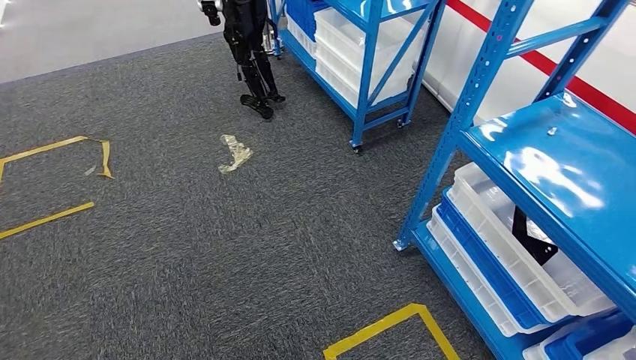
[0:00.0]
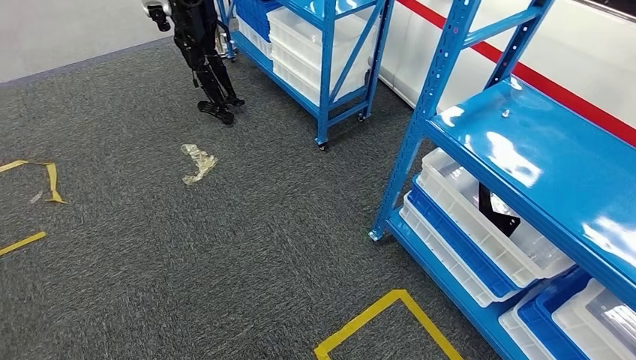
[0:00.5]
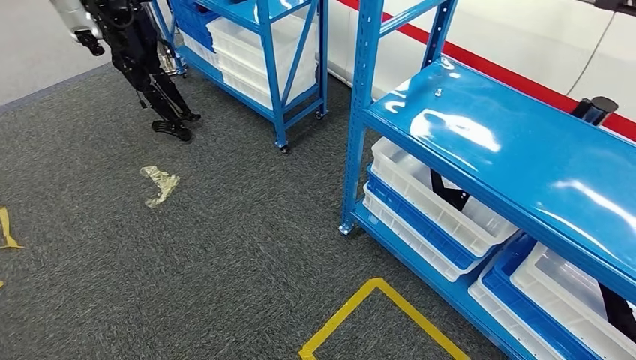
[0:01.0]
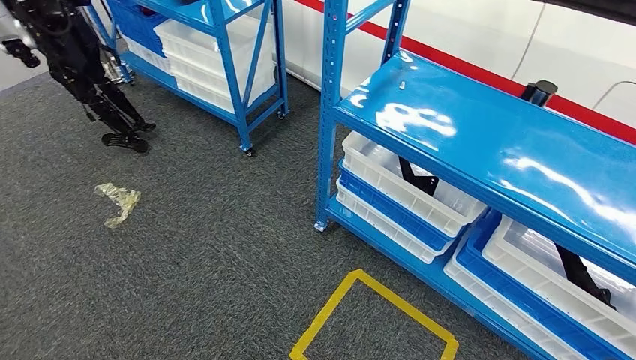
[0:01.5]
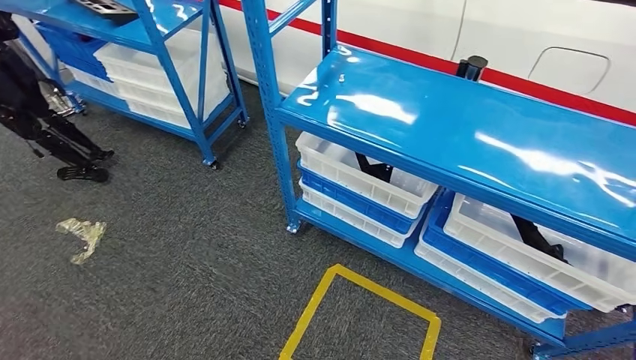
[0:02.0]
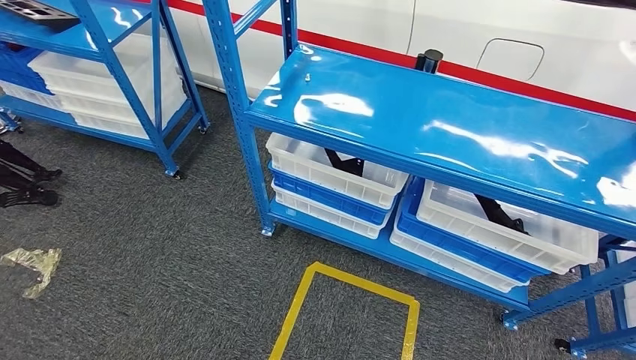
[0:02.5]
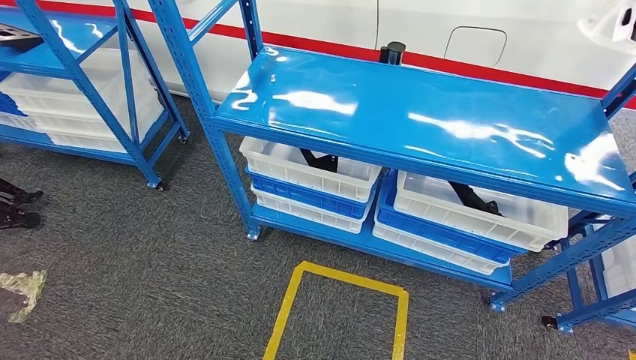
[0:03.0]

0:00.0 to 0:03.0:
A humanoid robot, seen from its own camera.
Step, 0:00.0 to 0:03.0: Move to the initial position of the shelf.

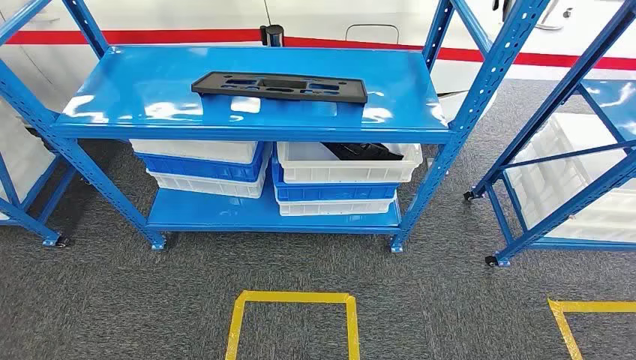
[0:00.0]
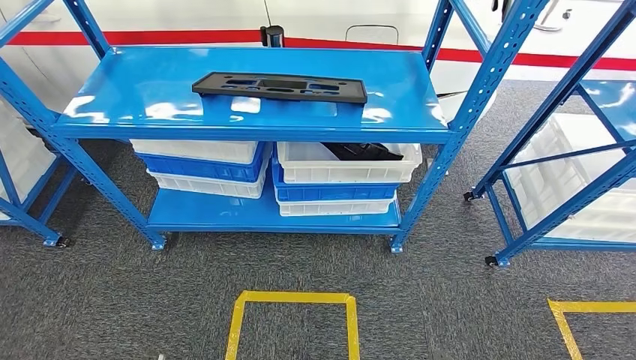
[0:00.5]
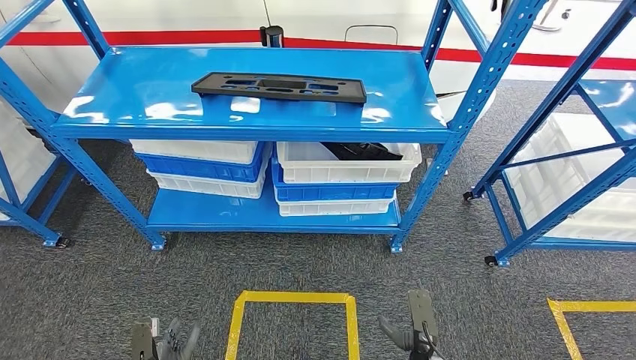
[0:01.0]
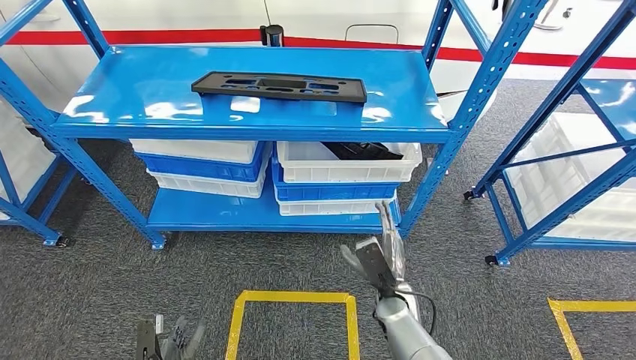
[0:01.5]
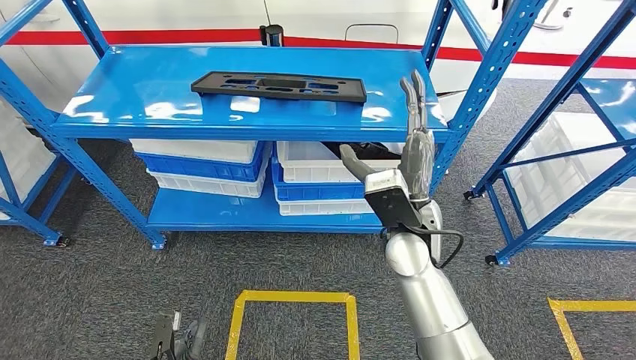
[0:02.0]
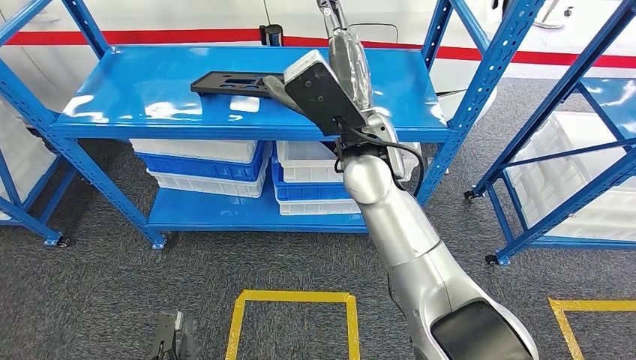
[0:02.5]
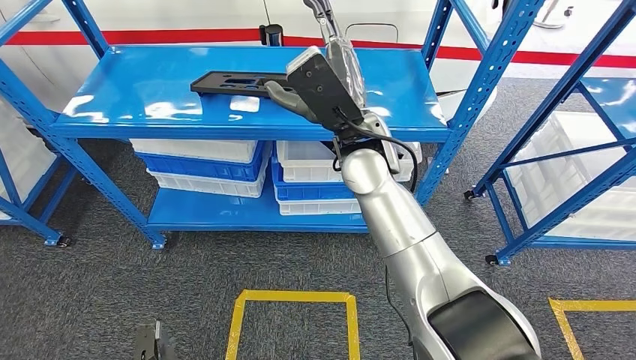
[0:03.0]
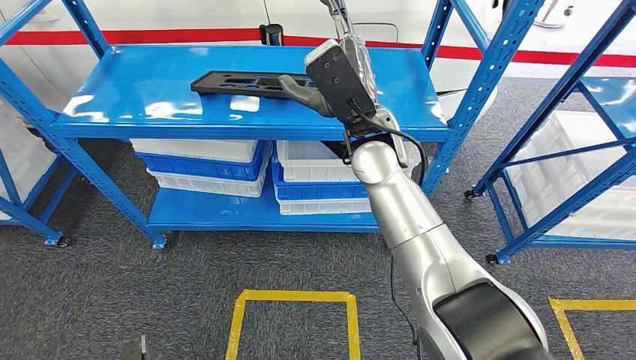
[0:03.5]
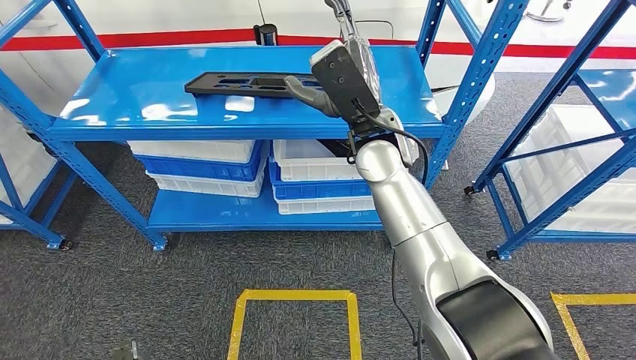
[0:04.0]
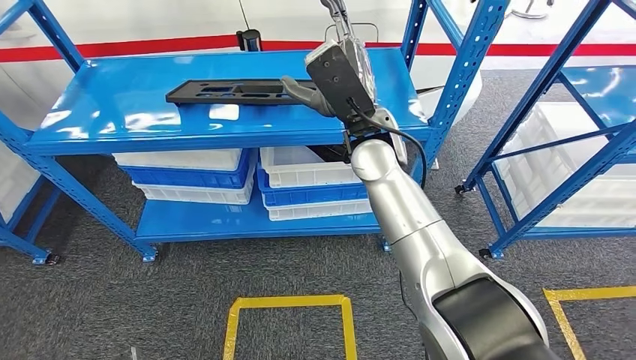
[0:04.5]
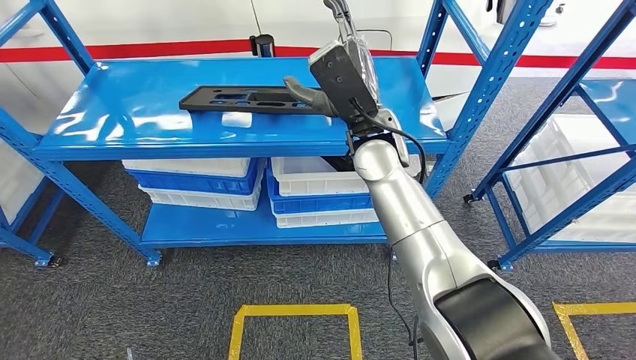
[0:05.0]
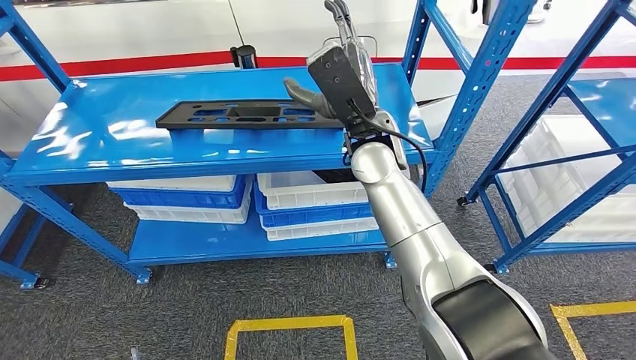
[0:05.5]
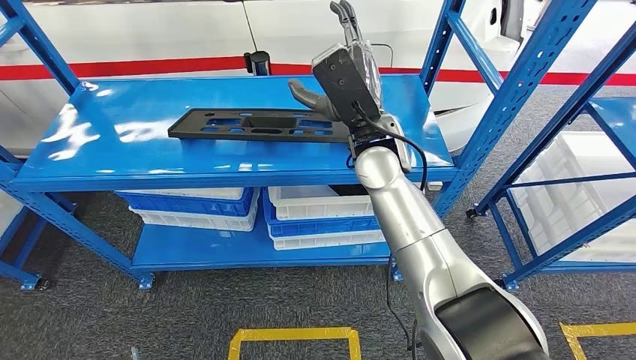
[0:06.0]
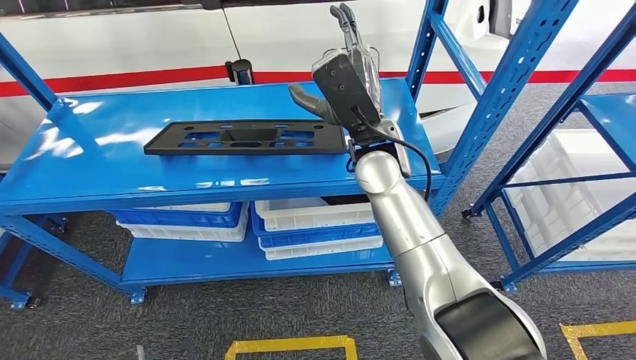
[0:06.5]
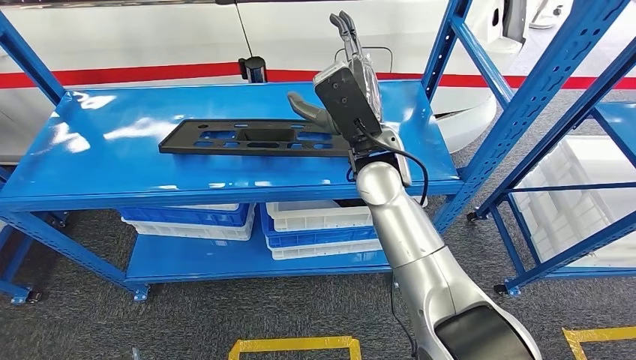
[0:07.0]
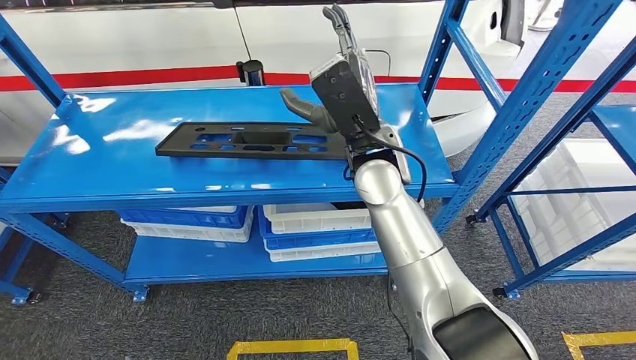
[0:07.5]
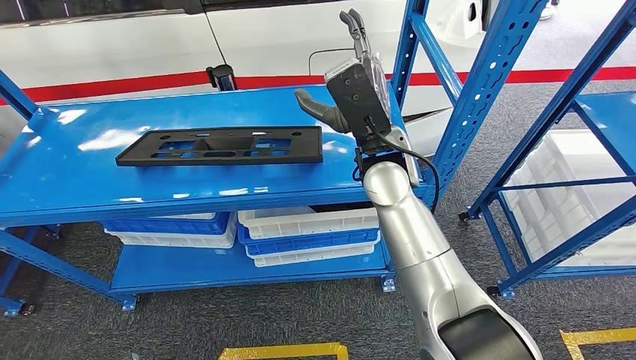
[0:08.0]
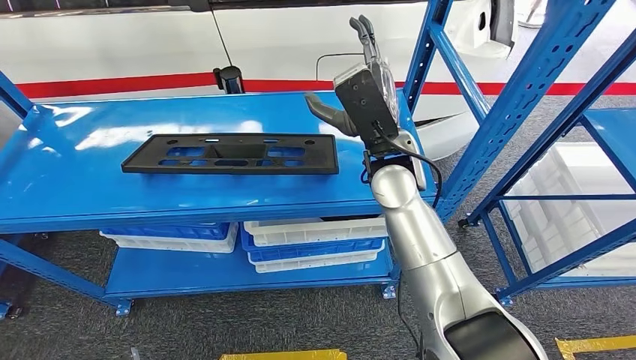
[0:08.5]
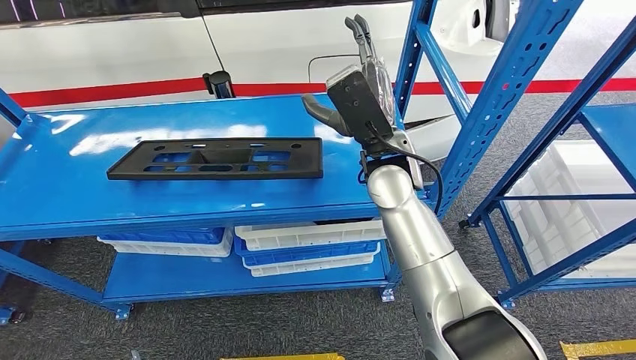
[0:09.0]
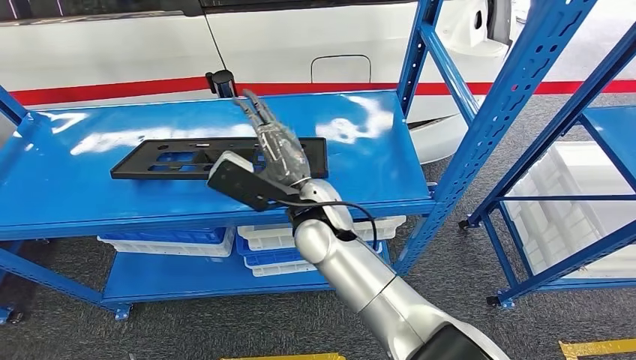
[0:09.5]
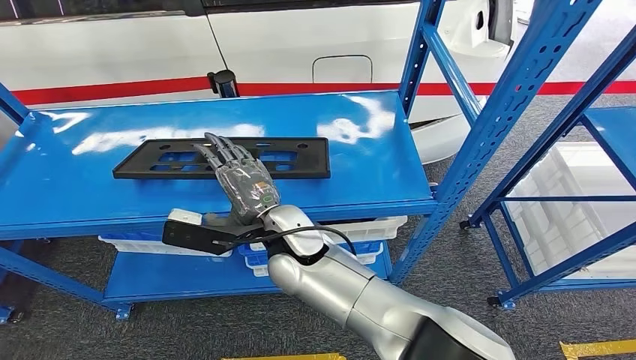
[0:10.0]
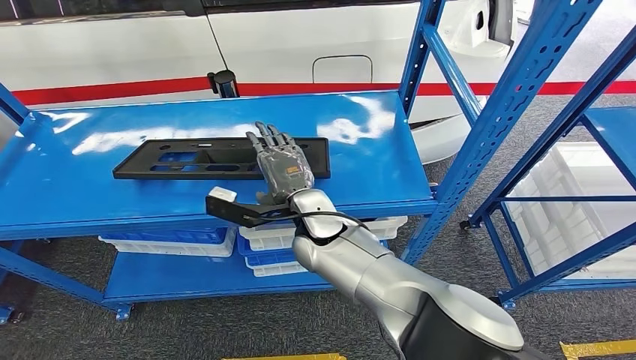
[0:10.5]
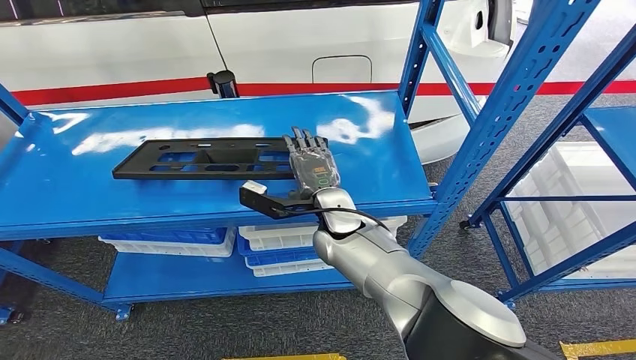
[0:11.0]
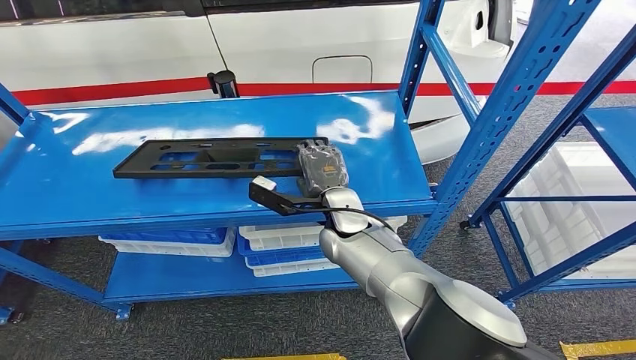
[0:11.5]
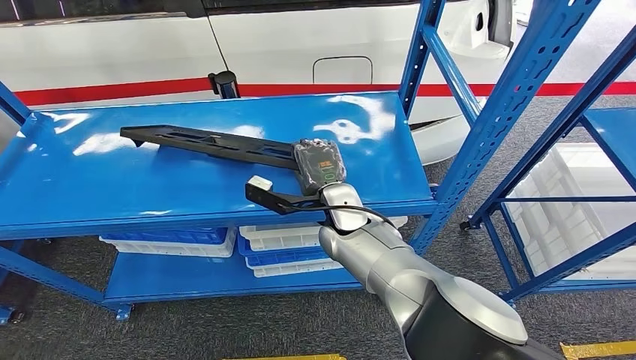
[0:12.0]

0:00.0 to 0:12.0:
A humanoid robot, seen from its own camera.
0:10.0 to 0:12.0: The right hand heads to the right and forward, covering roughly 10 cm.

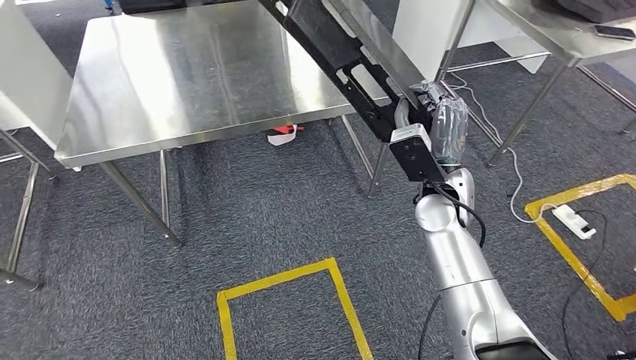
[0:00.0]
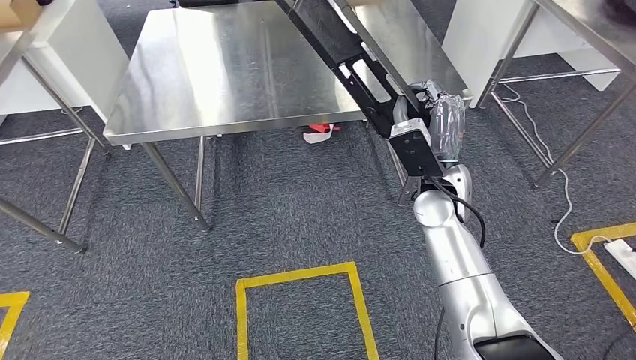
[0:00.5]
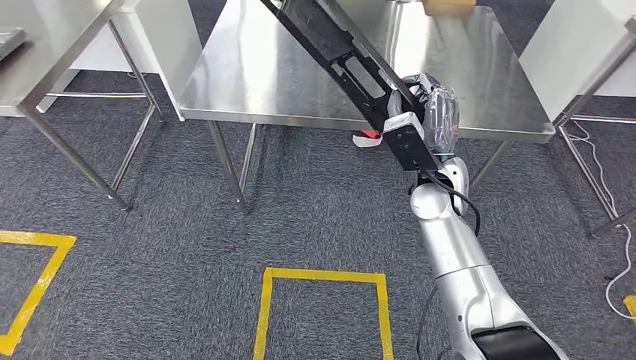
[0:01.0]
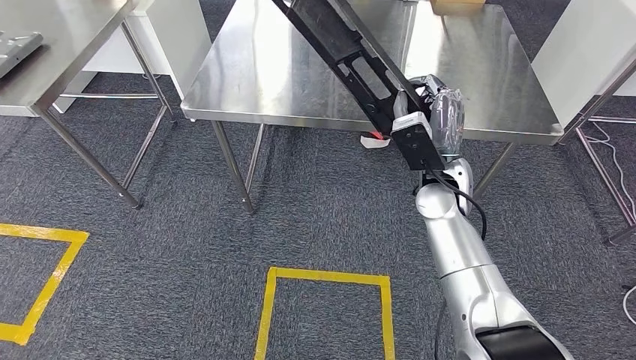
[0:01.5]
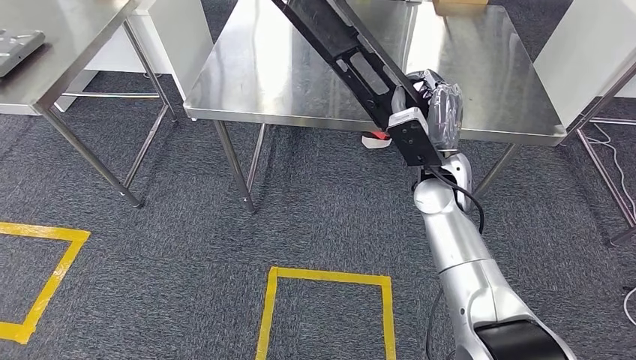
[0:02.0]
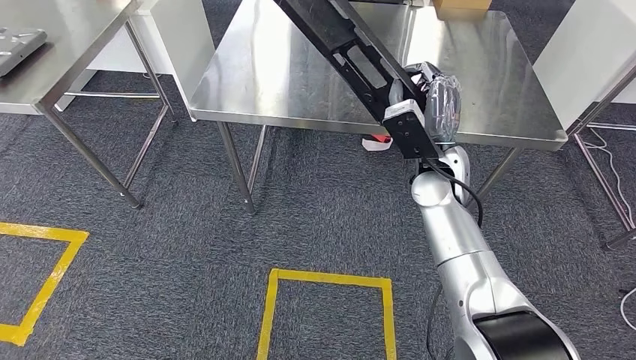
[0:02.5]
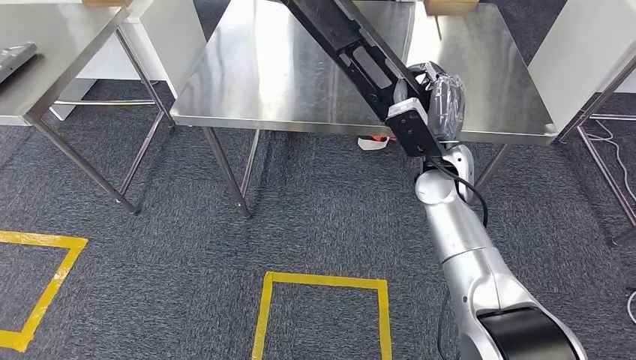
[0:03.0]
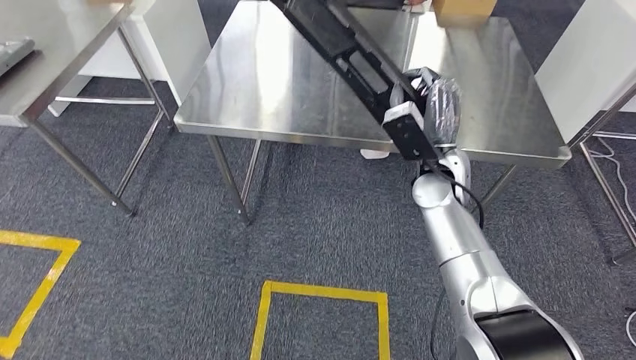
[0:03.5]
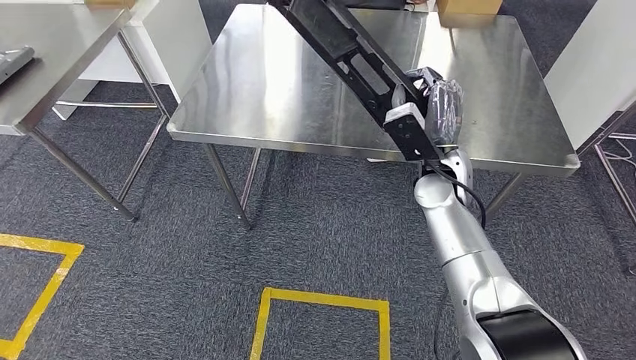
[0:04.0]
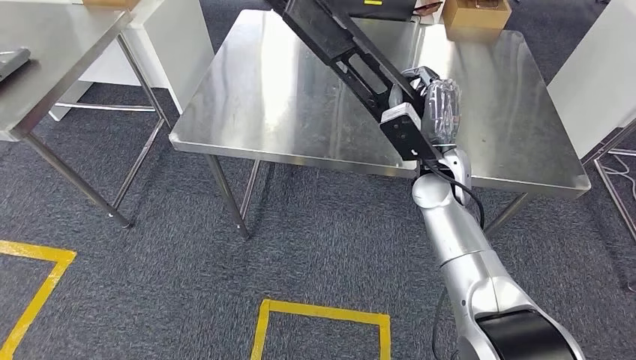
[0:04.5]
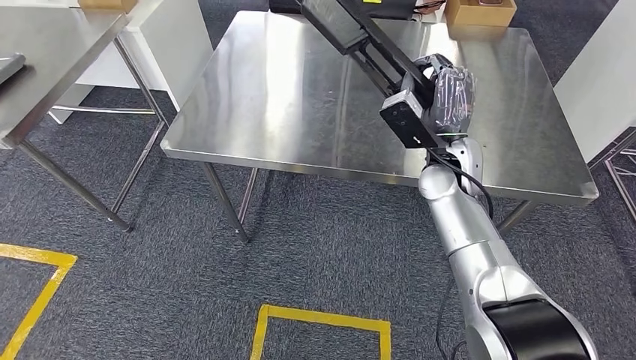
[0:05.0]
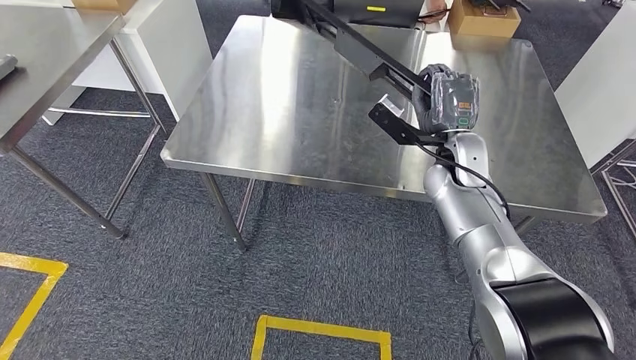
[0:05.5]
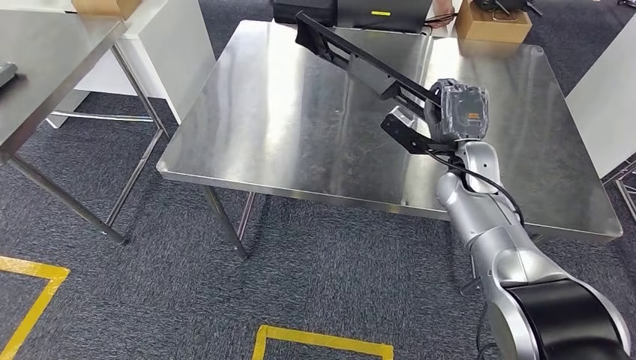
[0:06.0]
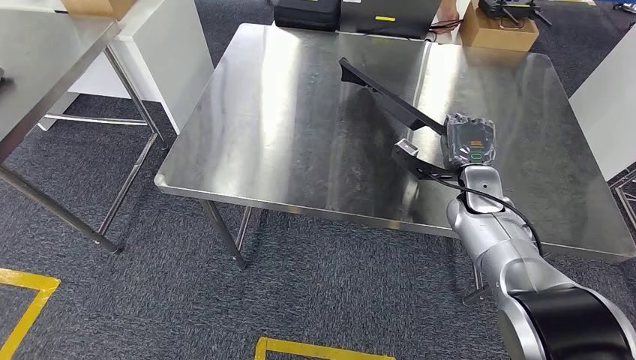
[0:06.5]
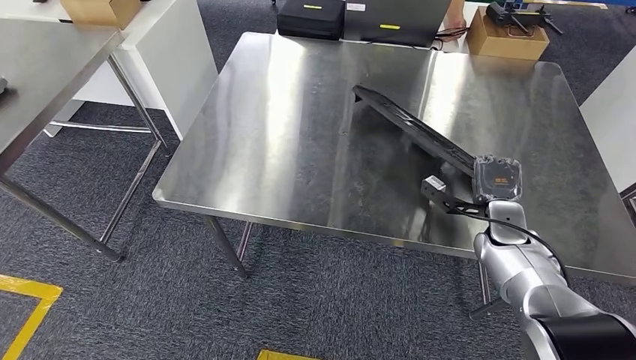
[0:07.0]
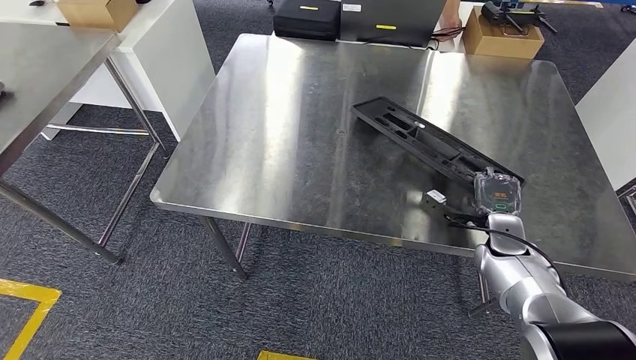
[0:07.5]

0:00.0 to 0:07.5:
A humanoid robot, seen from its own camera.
Step, 0:00.0 to 0:05.0: Move the large material to the workbench.
